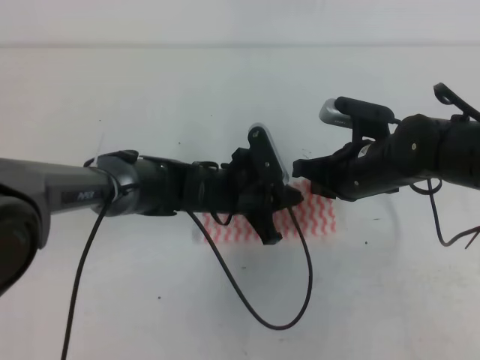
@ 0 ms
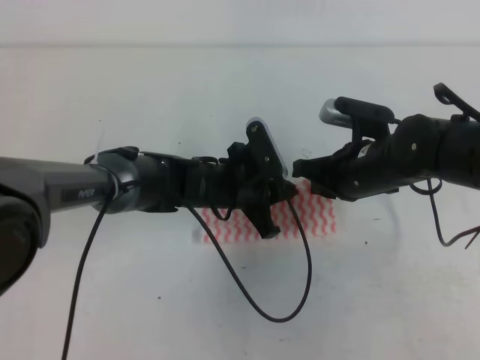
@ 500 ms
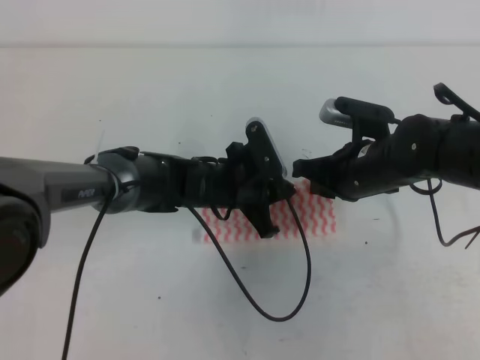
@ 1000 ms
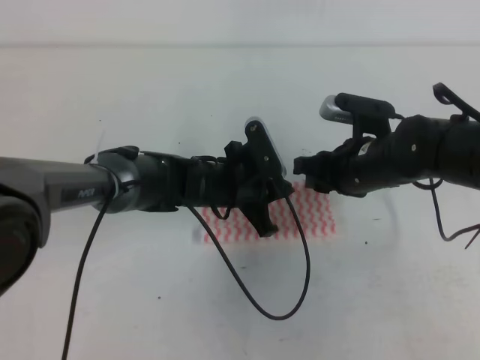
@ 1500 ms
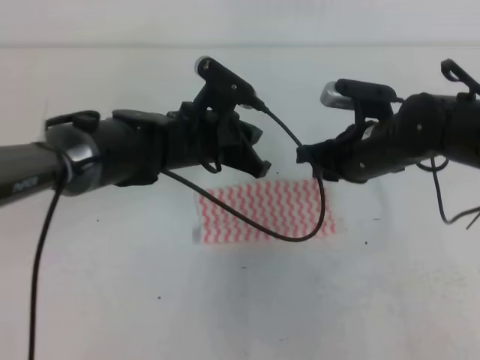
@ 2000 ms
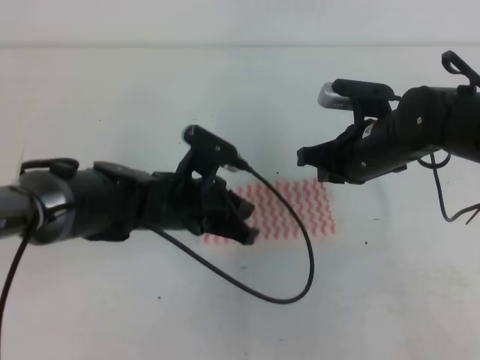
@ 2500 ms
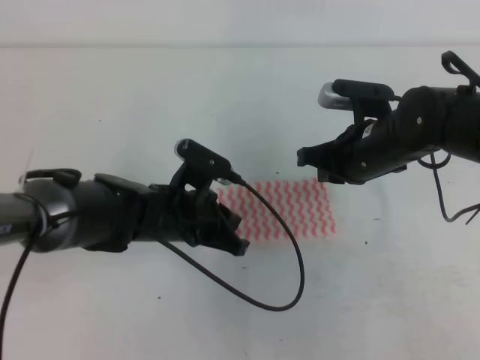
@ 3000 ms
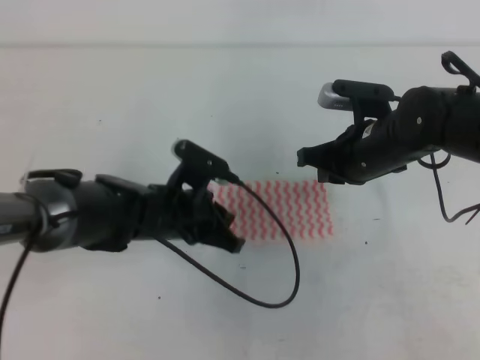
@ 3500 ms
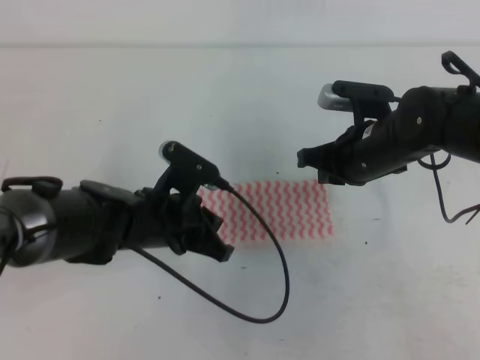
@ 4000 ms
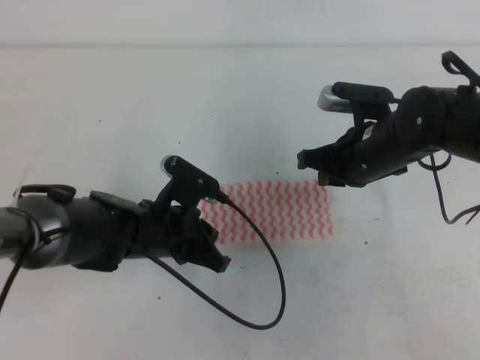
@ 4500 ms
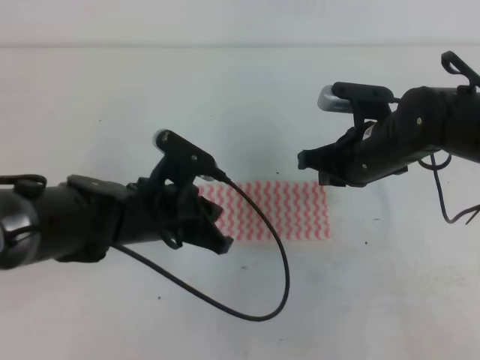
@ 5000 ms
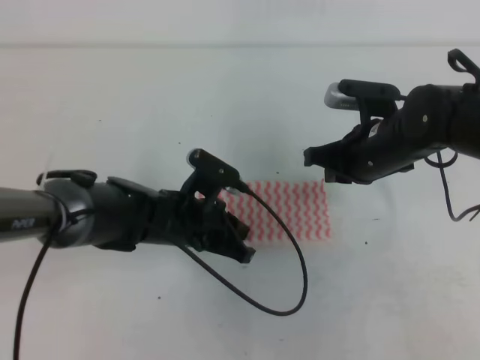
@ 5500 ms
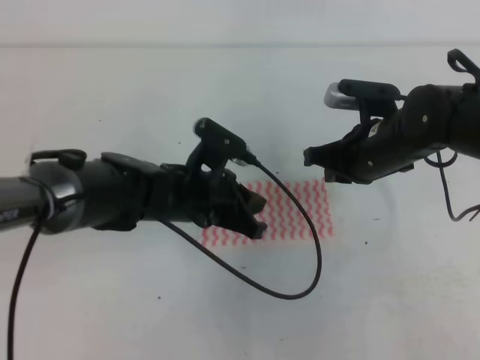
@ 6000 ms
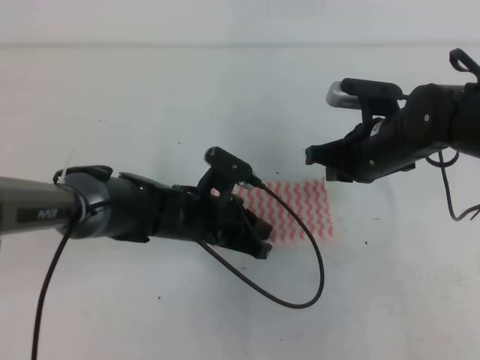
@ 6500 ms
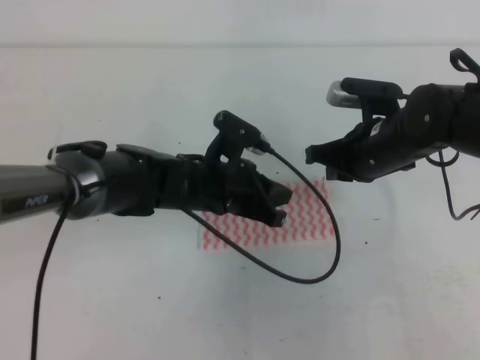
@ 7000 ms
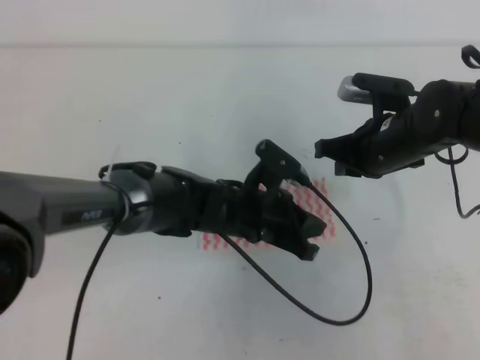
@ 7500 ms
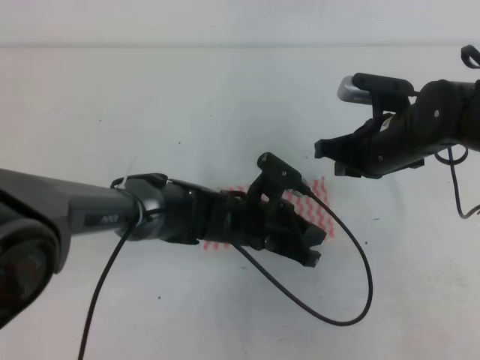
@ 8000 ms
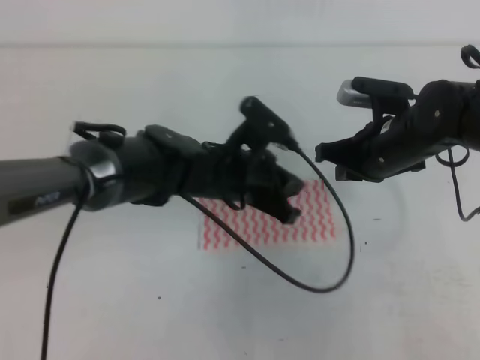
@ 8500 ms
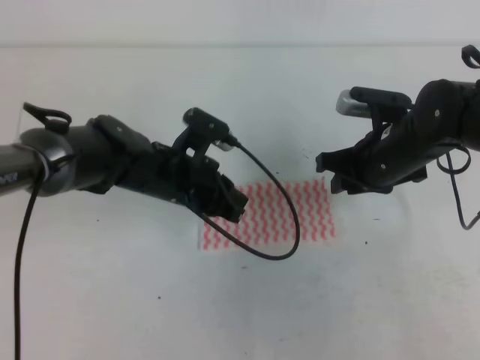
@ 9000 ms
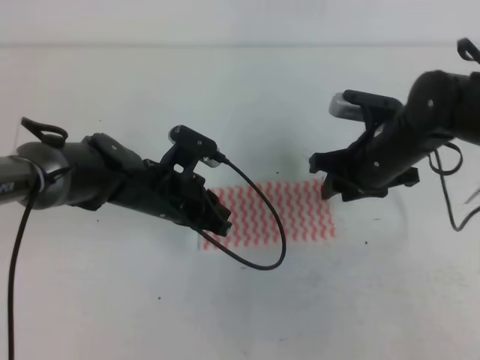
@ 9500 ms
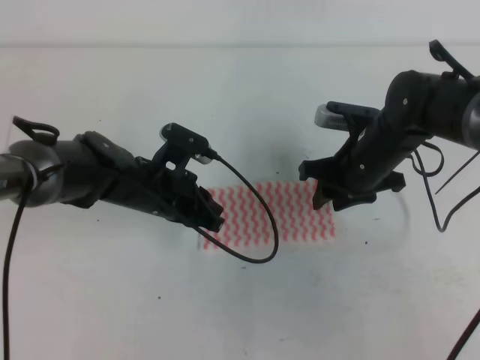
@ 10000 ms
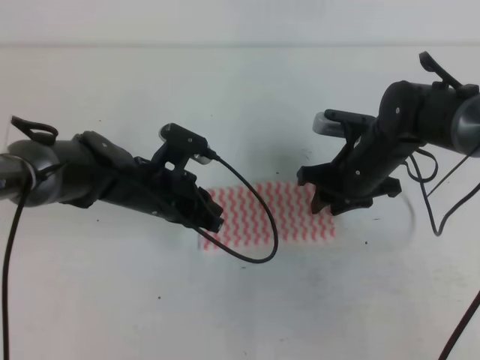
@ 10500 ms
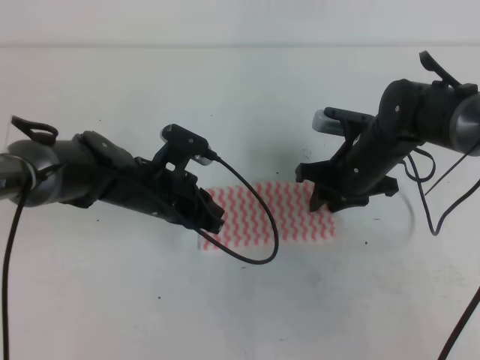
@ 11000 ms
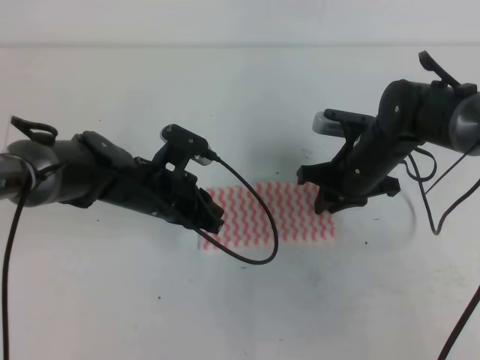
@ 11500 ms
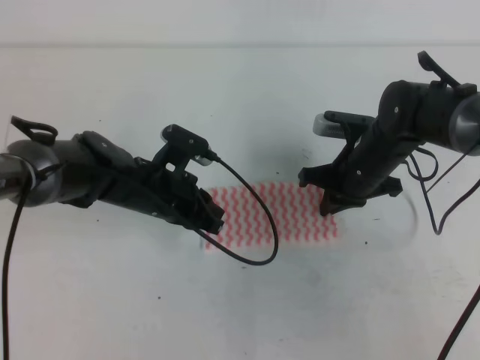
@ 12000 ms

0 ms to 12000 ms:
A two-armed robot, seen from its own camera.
0 ms to 2000 ms: The right gripper opens its fingers, while the left gripper shifts roughly 5 cm upward.
2000 ms to 4000 ms: The left gripper heads backward, covering about 5 cm, while the right gripper closes.
4000 ms to 6000 ms: The grippers stay close to where they were, moving slightly.
6000 ms to 8000 ms: The left gripper travels to the right by roughly 5 cm.
8000 ms to 10000 ms: The left gripper goes some 10 cm to the left. Meanwhile the right gripper opens up.
10000 ms to 12000 ms: The right gripper closes.

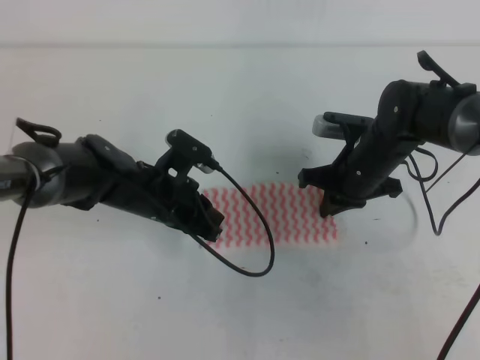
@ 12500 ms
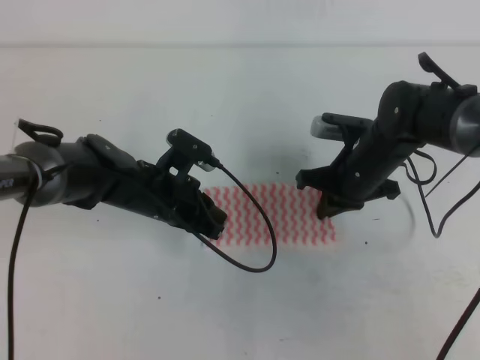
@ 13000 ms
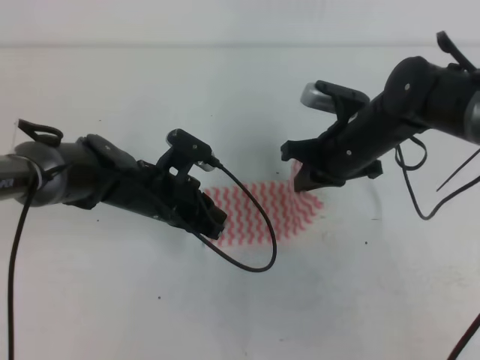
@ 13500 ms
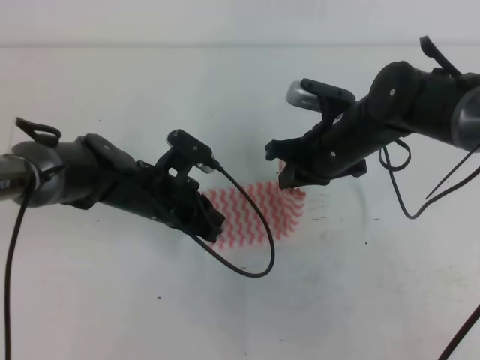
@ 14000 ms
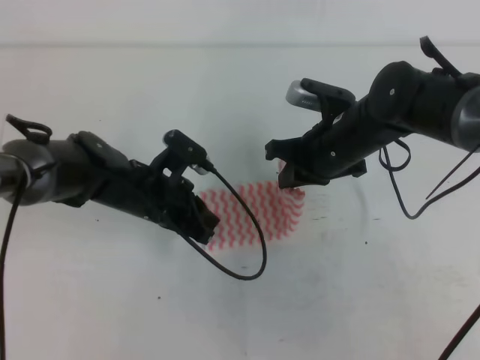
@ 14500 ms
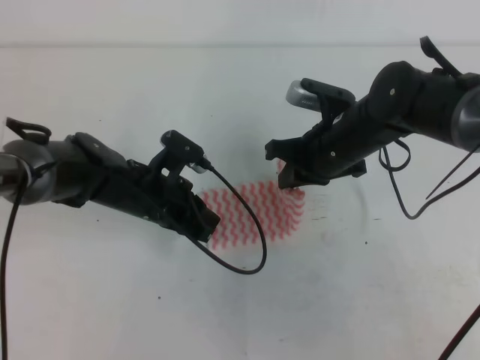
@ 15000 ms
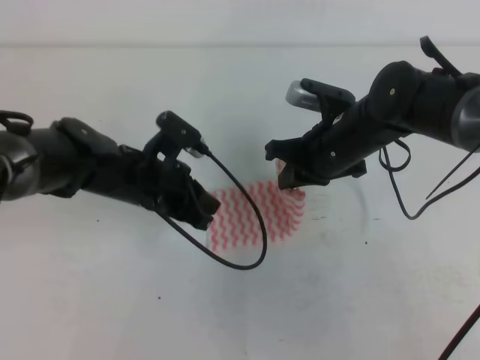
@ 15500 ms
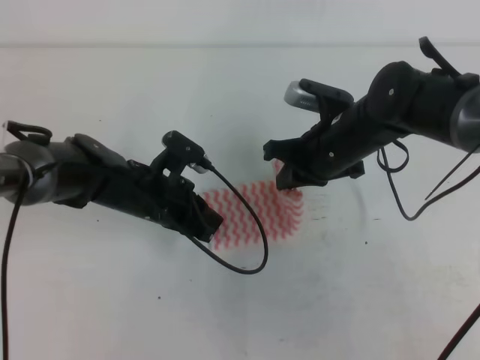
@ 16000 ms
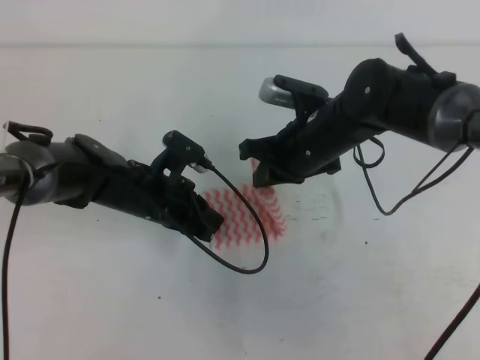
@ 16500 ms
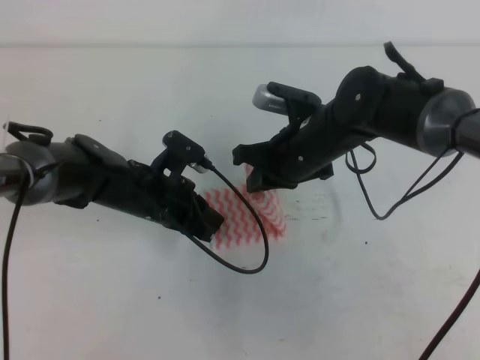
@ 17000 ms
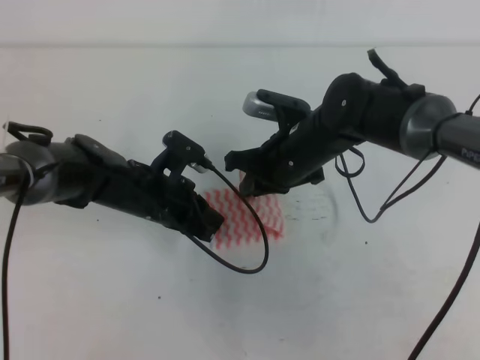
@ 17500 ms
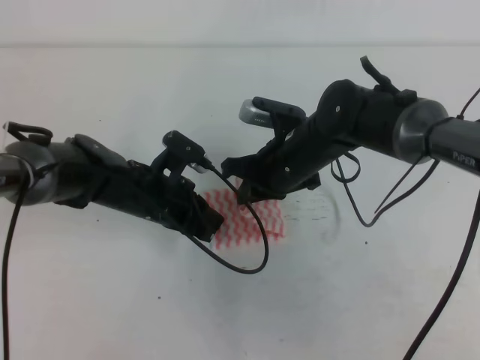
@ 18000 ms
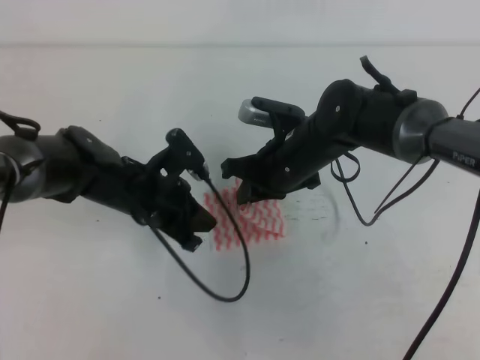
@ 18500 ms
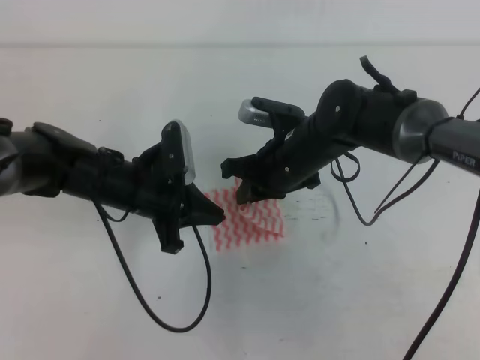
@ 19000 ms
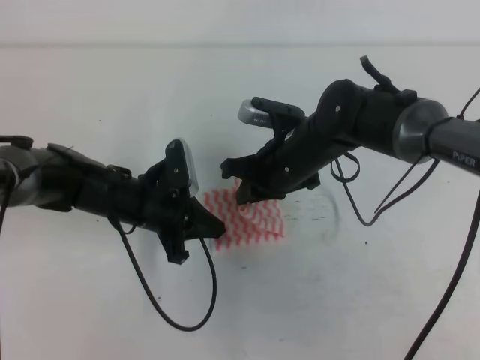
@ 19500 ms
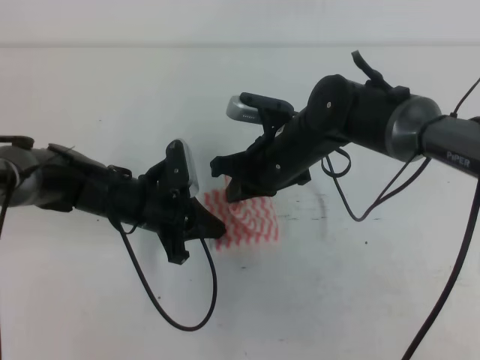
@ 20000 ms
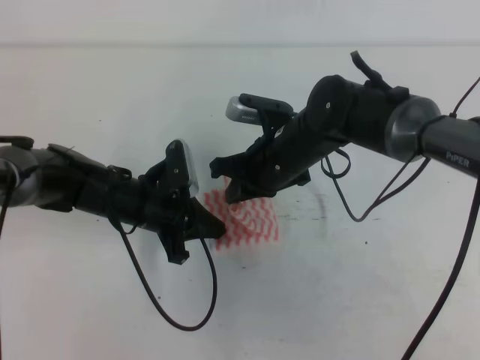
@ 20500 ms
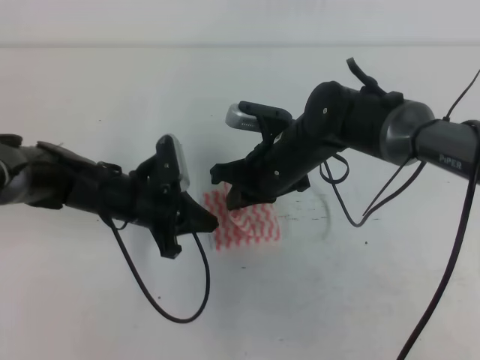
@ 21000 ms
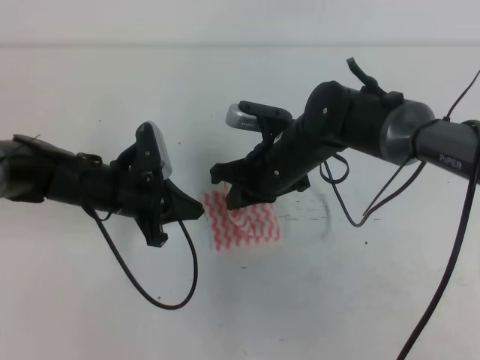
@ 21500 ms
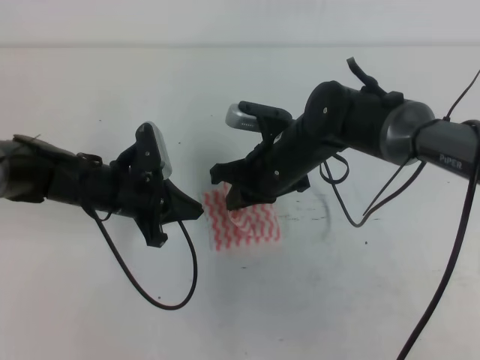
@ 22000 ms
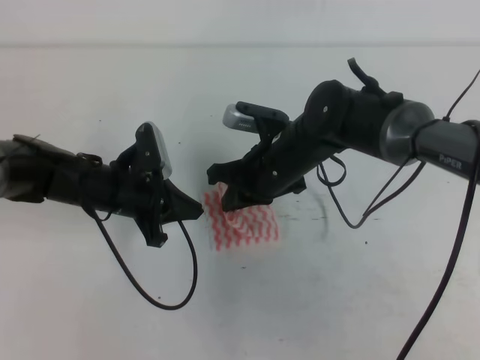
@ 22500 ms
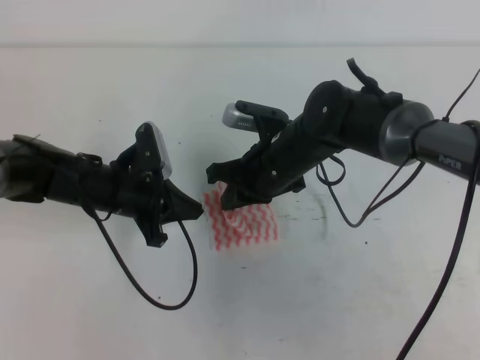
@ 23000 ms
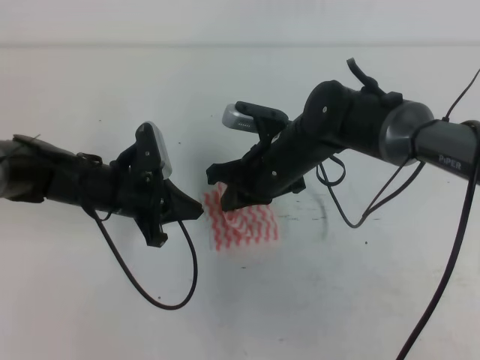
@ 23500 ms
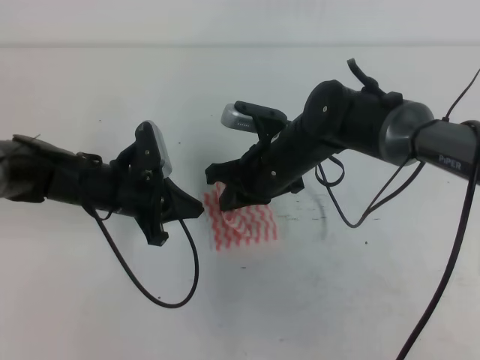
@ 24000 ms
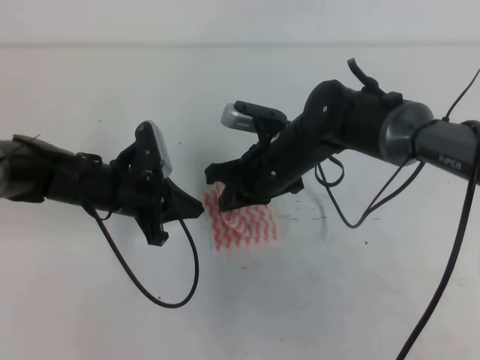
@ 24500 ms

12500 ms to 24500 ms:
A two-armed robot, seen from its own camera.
12500 ms to 14500 ms: The right gripper shifts approximately 5 cm upward.
14500 ms to 18500 ms: The grippers move only a little.
20500 ms to 22500 ms: The grippers move only a little.
22500 ms to 24500 ms: Neither gripper changes place.

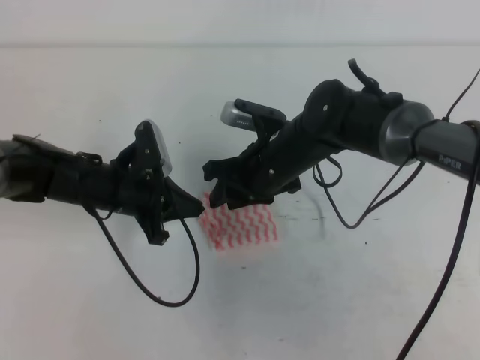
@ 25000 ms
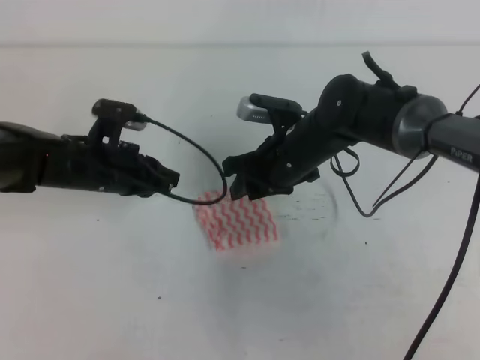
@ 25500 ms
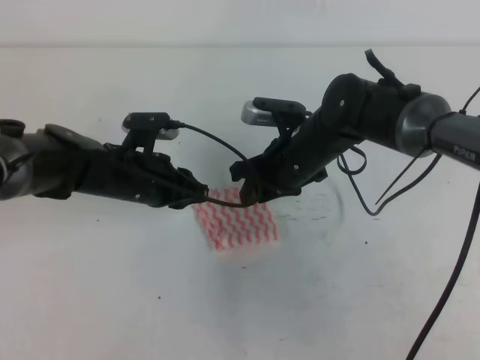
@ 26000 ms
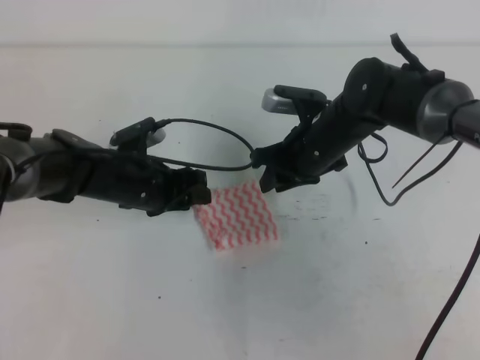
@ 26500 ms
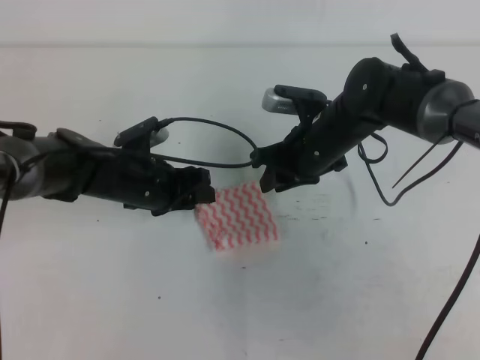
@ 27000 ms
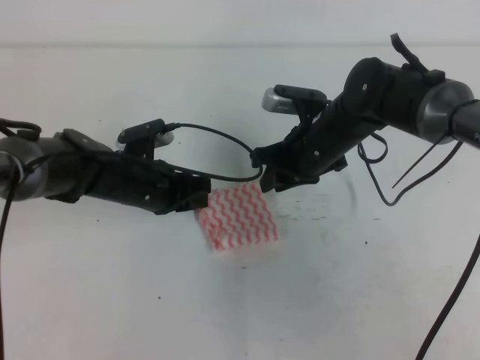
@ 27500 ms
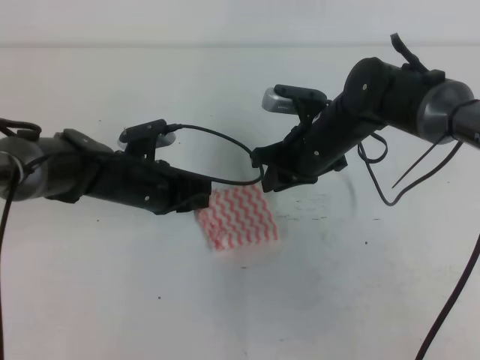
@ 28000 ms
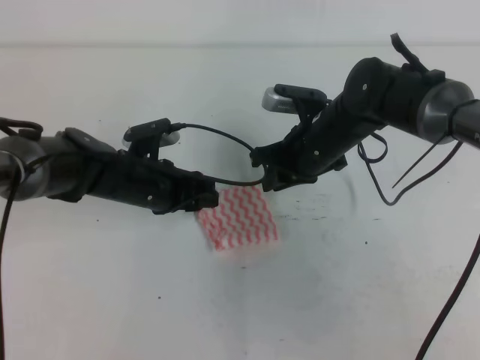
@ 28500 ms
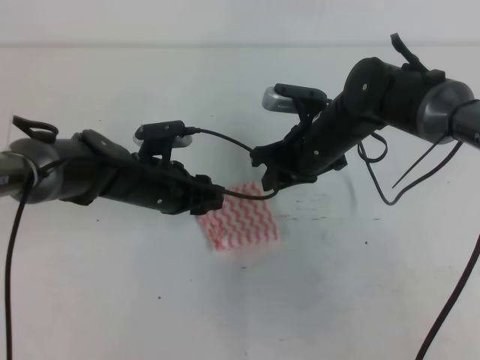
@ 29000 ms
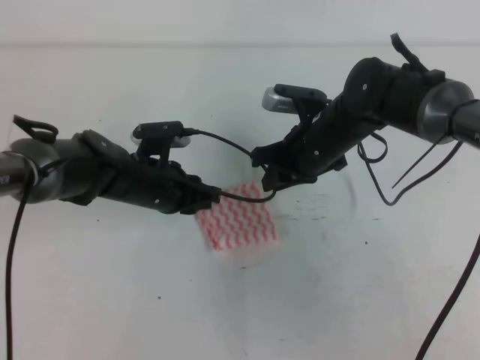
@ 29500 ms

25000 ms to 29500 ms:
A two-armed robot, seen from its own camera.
25000 ms to 27000 ms: The right gripper heads to the right, covering approximately 5 cm. Meanwhile the left gripper opens its fingers.
27000 ms to 29500 ms: The left gripper closes its fingers.
